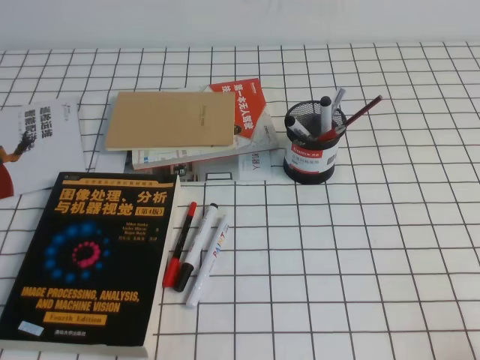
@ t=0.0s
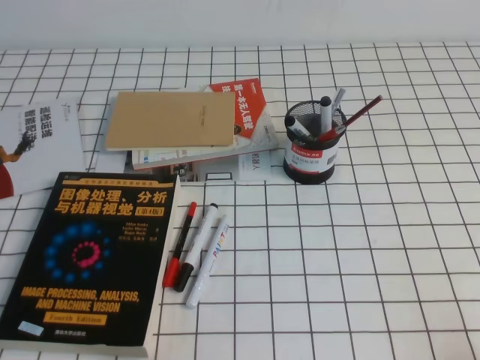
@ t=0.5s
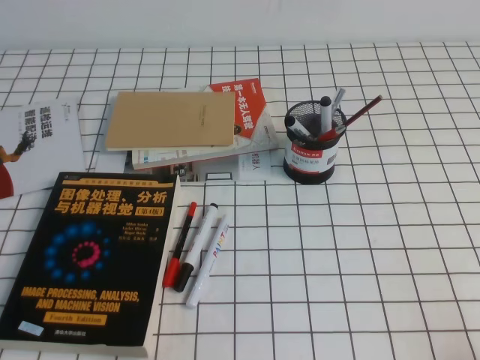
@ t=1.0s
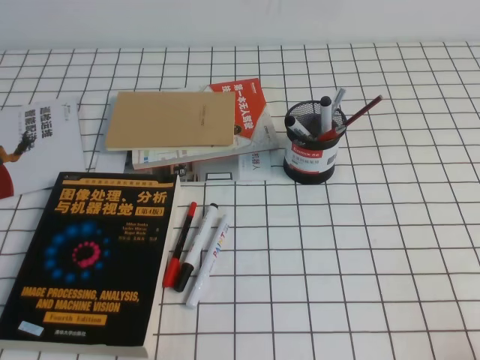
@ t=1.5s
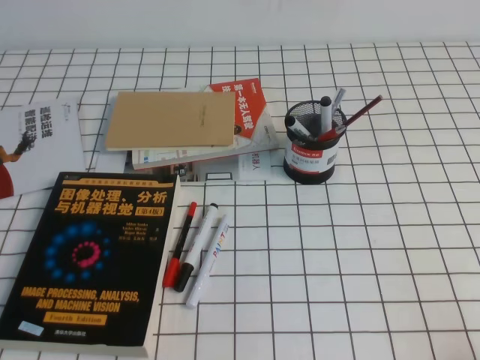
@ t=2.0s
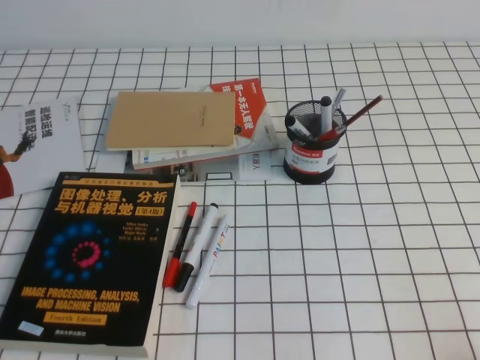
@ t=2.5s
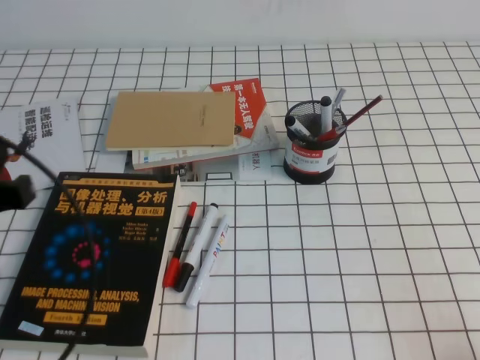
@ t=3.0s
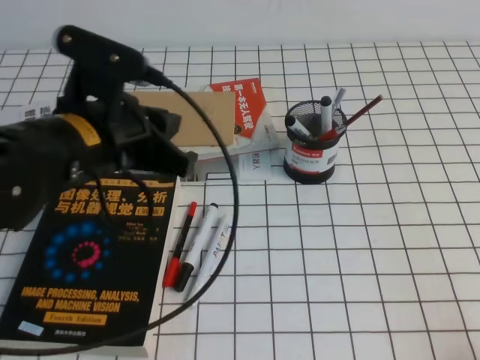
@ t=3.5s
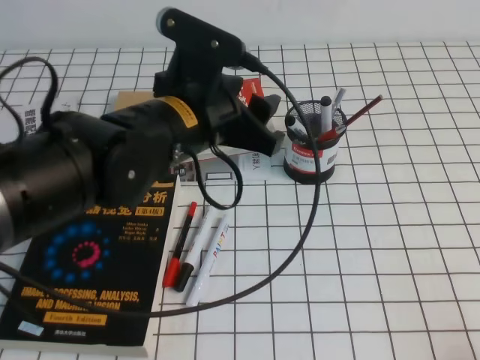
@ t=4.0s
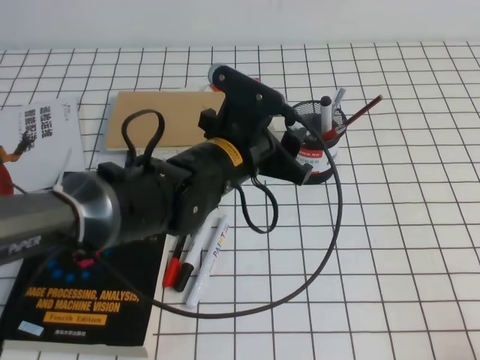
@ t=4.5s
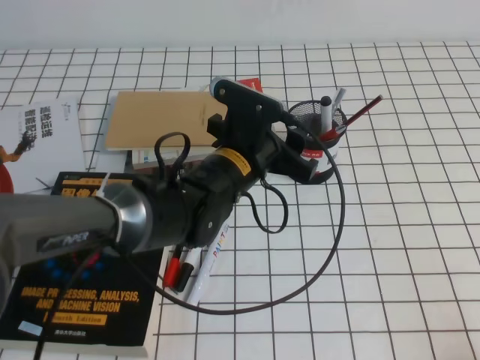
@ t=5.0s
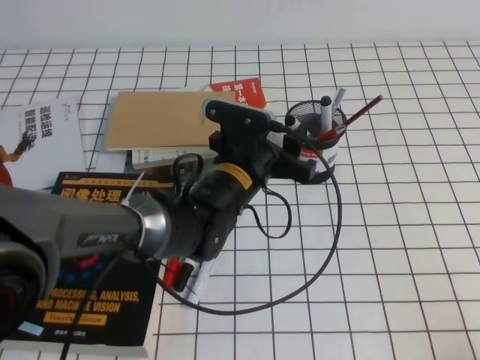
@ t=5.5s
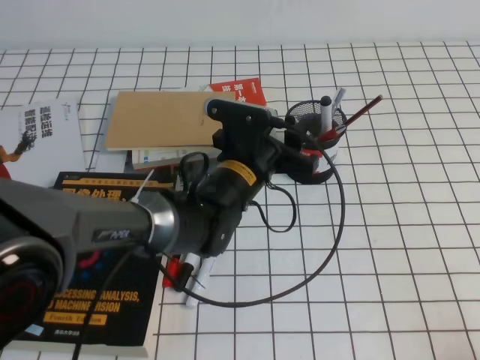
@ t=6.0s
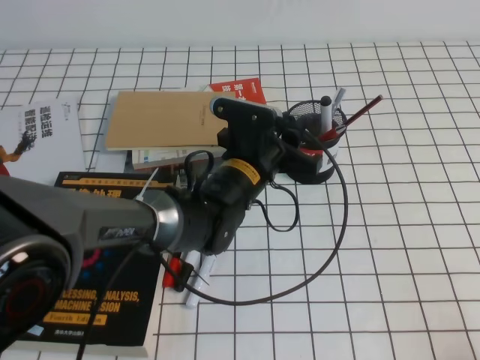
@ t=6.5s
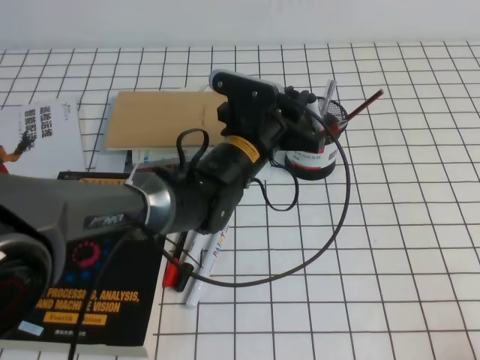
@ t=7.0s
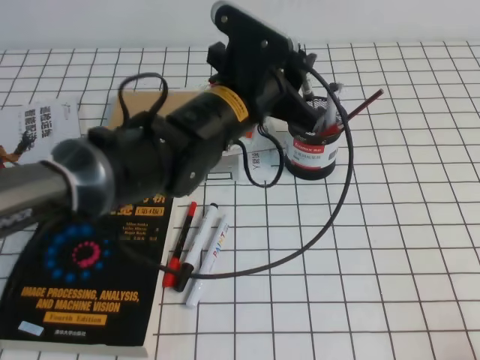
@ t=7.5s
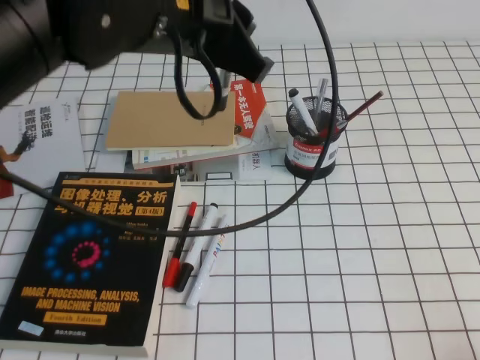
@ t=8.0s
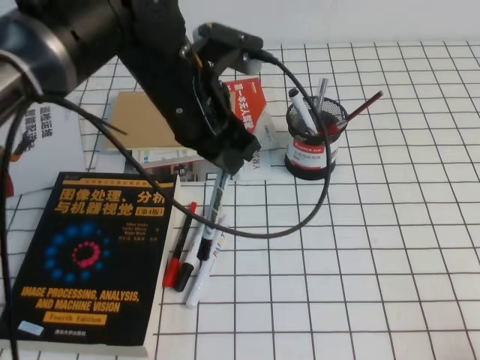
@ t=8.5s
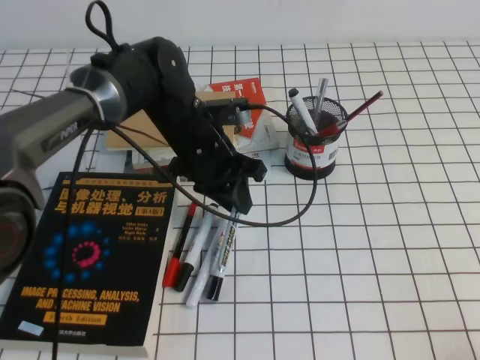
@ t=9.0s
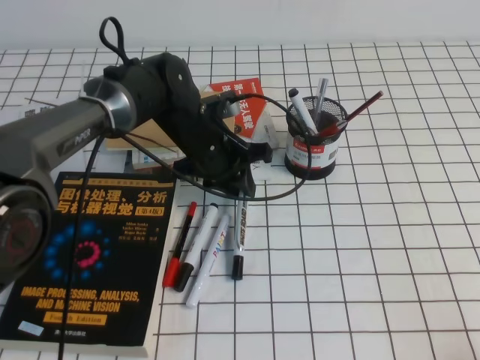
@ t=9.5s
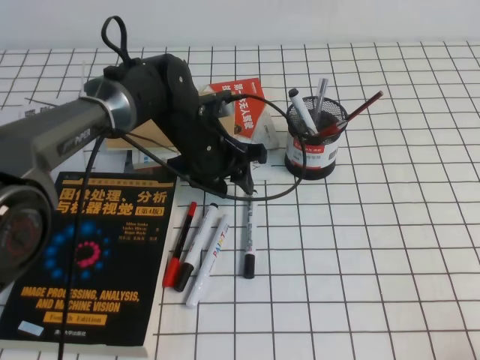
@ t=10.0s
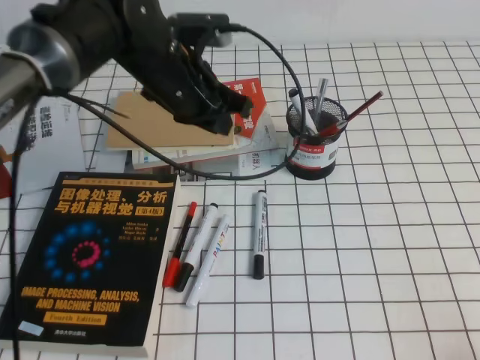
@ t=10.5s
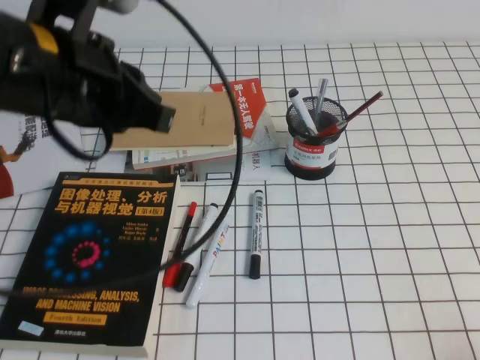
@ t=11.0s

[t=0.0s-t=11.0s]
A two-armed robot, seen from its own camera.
t=2.0s to t=3.5s: The left gripper goes approximately 25 cm forward, to the right and upward.
t=3.5s to t=5.5s: The left gripper shifts some 20 cm to the right, downward and forward, and opens its fingers.
t=5.5s to t=7.5s: The left gripper travels upward by some 10 cm, and closes up.
t=7.5s to t=9.0s: The left gripper moves downward and forward, approximately 10 cm.
t=9.0s to t=11.0s: The left gripper travels upward, backward and to the left by roughly 25 cm, and opens, then closes once more.

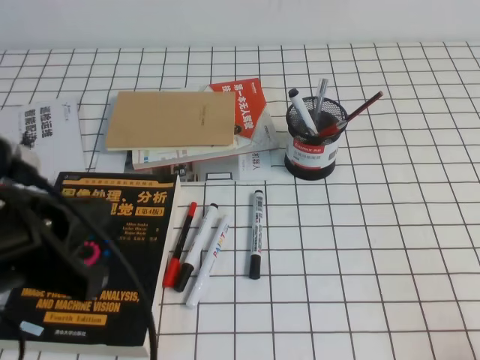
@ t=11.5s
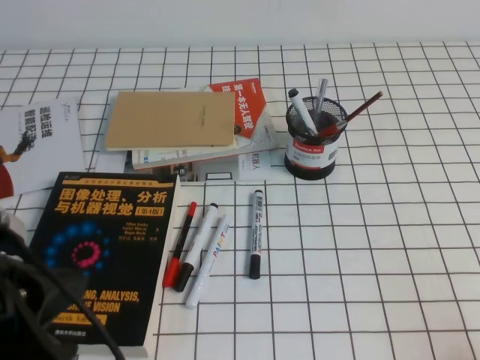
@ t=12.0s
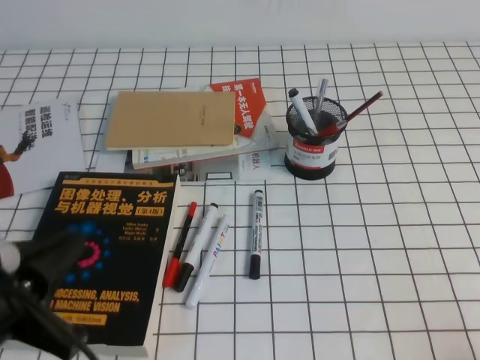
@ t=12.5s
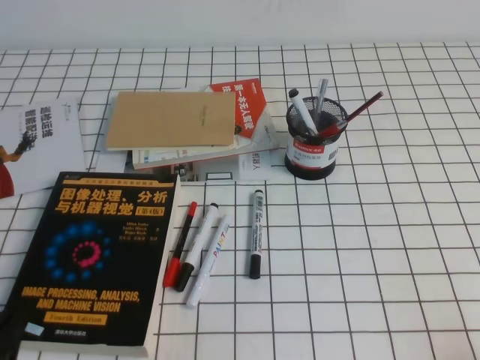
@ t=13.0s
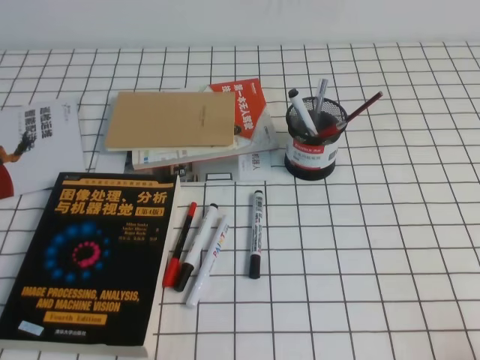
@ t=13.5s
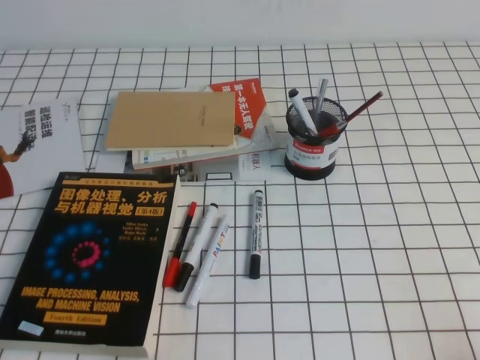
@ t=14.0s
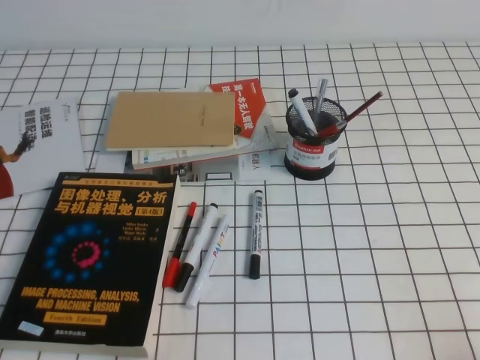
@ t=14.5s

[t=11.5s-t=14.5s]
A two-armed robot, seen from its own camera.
Step, t=11.5s to t=14.5s: Pick up the pen from the pen holder.
t=11.5s to t=13.0s: The left gripper shifts some 20 cm downward, backward and to the left.
